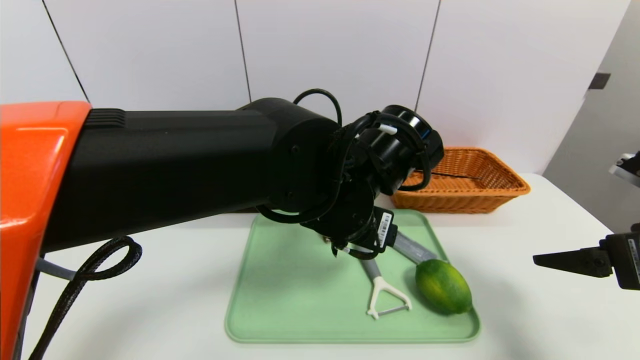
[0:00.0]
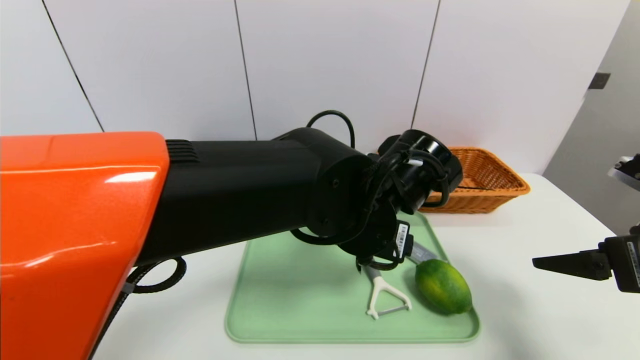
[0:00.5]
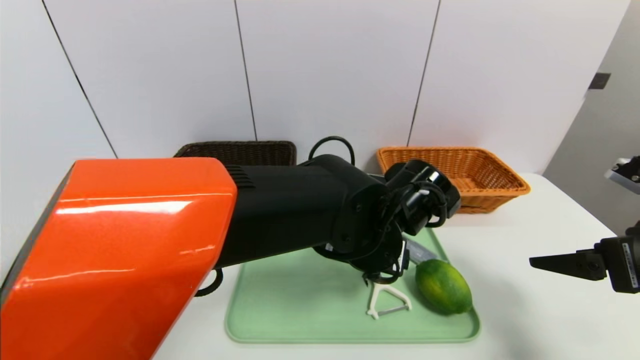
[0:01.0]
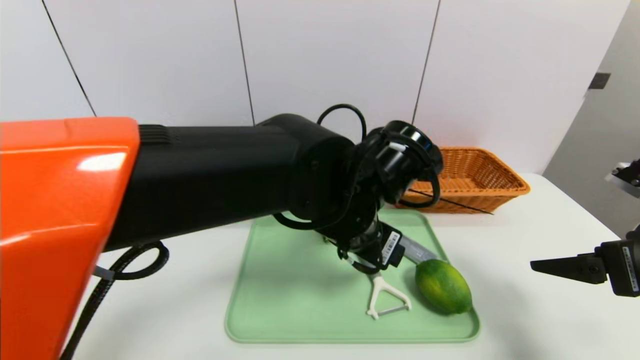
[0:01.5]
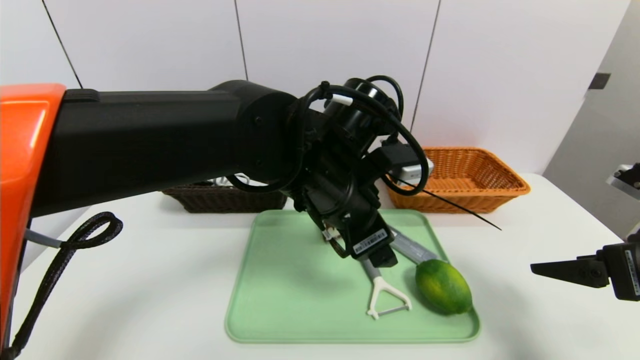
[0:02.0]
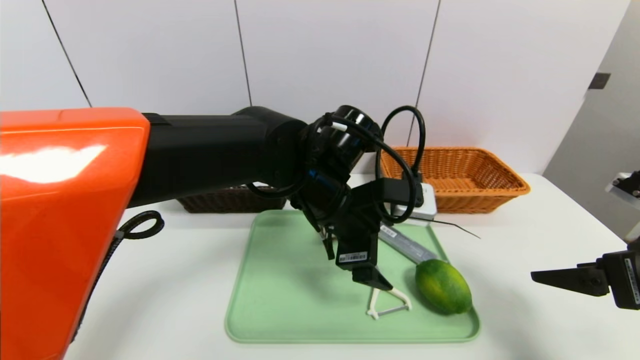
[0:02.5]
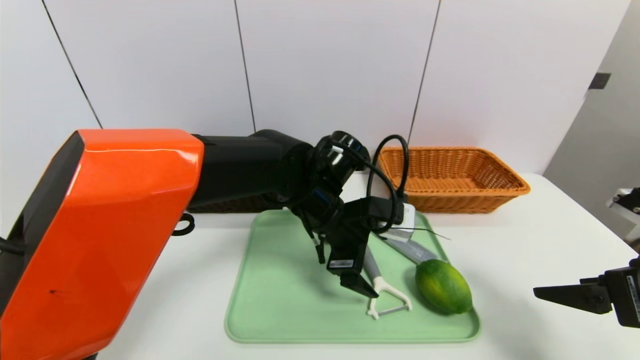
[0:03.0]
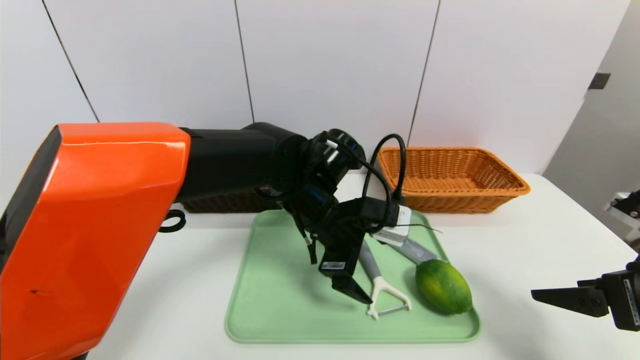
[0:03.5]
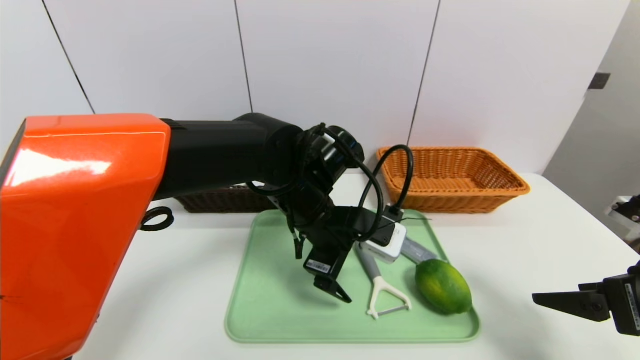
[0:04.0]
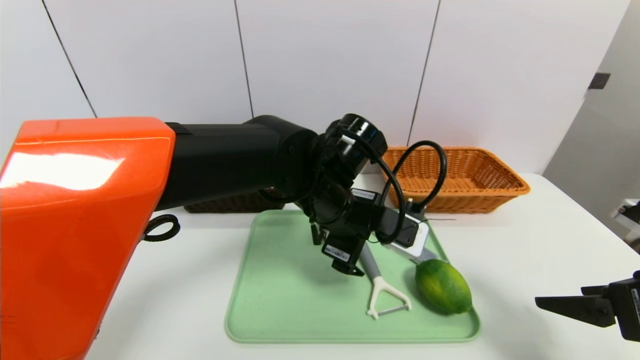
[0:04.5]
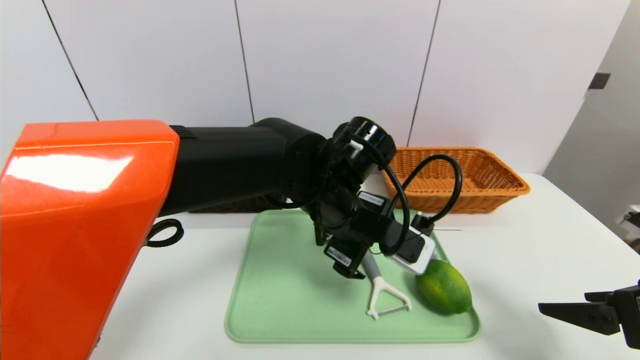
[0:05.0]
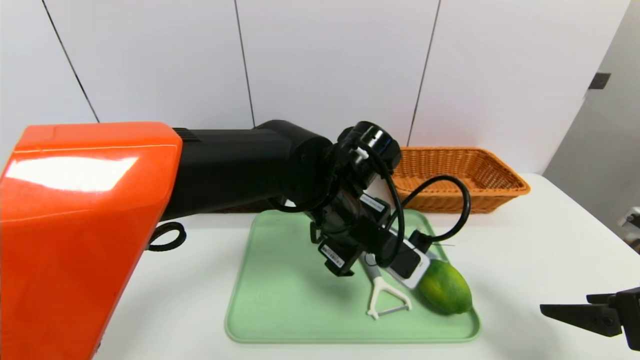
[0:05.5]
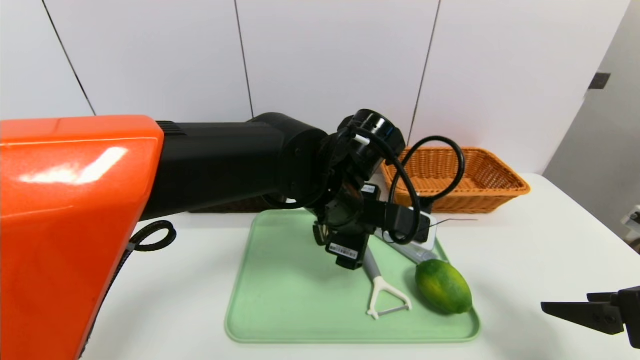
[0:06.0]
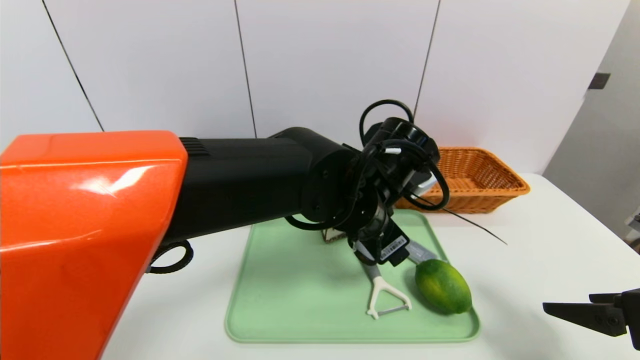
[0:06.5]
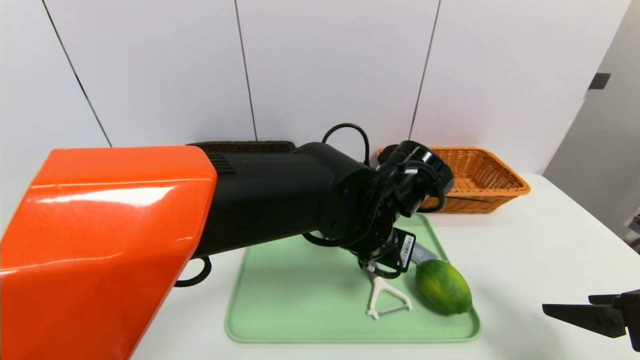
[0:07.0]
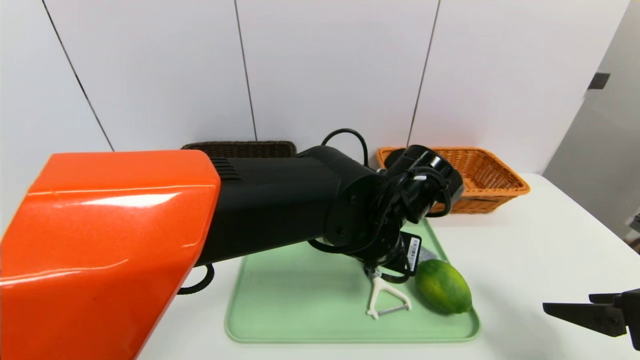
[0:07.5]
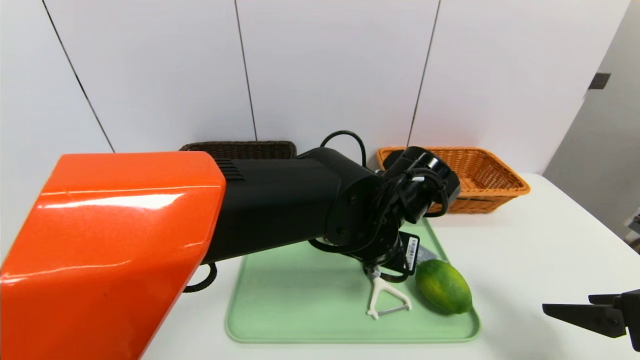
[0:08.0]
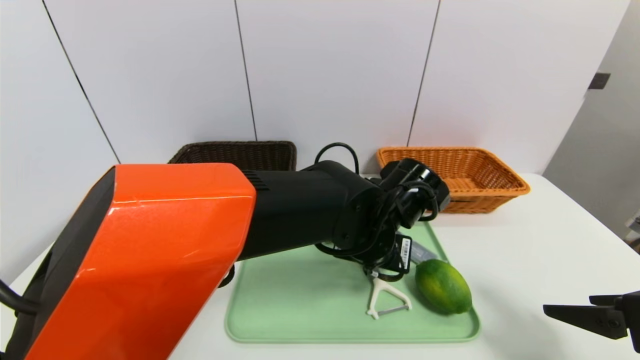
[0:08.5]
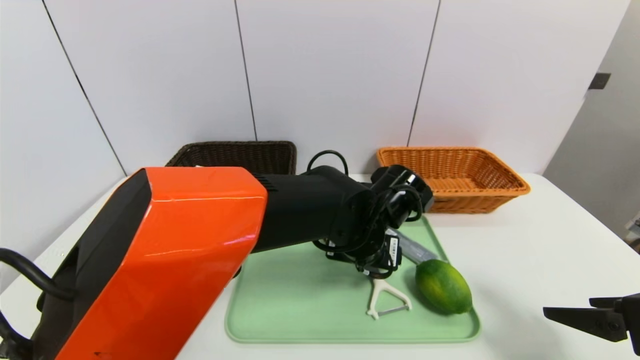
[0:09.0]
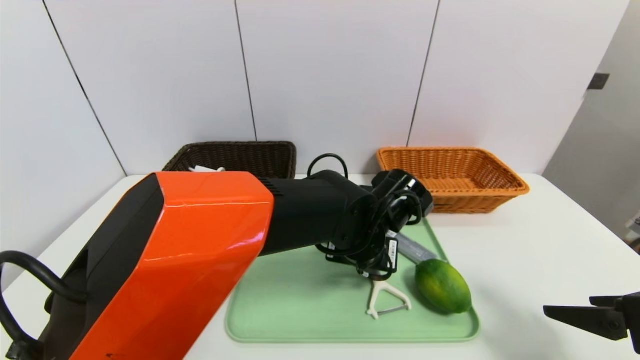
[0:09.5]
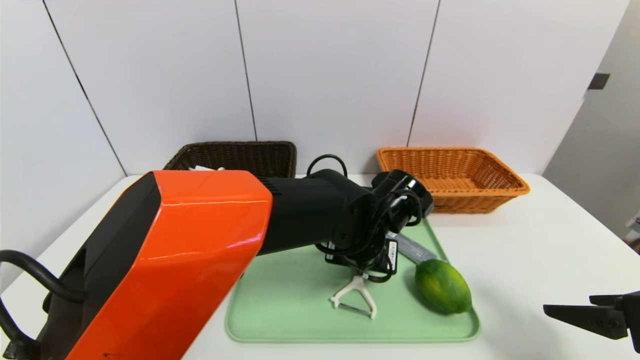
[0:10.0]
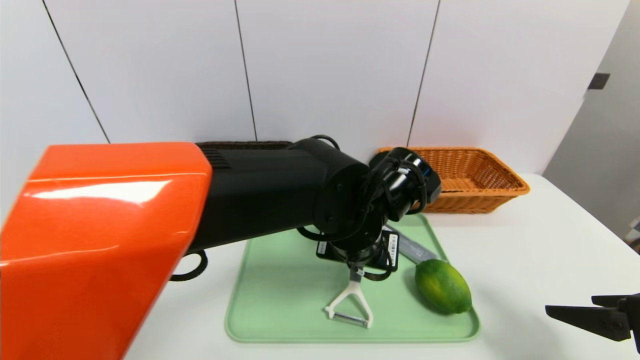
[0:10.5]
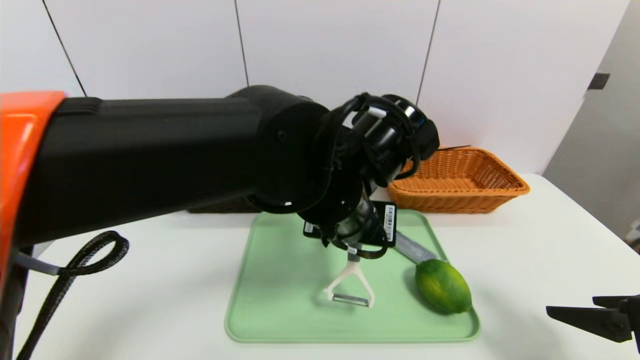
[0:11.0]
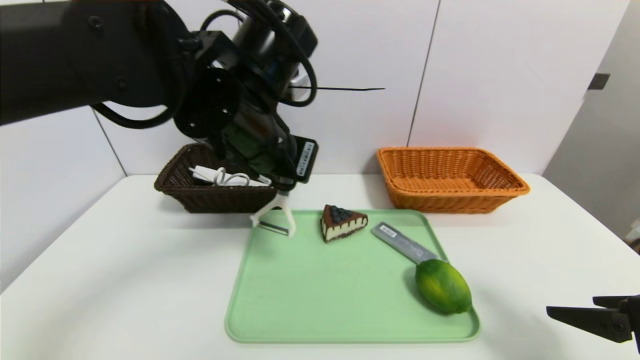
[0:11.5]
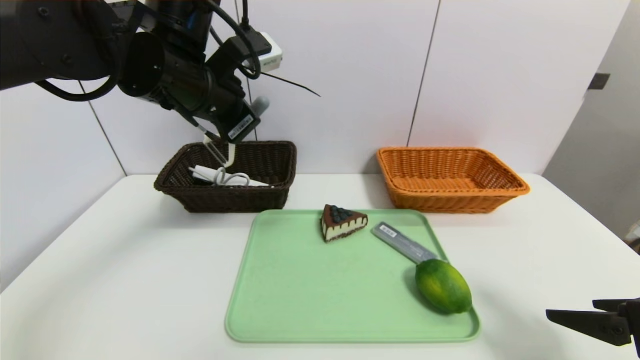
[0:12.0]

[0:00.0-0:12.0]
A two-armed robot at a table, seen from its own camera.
Task of the whole recording: place the food in the right basket with the right gripper, and place the non food items in the left basket with the left gripper.
0:02.0 to 0:04.0: The left gripper moves downward, about 5 cm.
0:06.0 to 0:08.0: The left gripper moves roughly 5 cm, and closes its fingers.
0:08.0 to 0:10.0: The left gripper moves approximately 5 cm, and opens, then closes again.
0:10.0 to 0:12.0: The left gripper moves to the left and upward, roughly 30 cm.

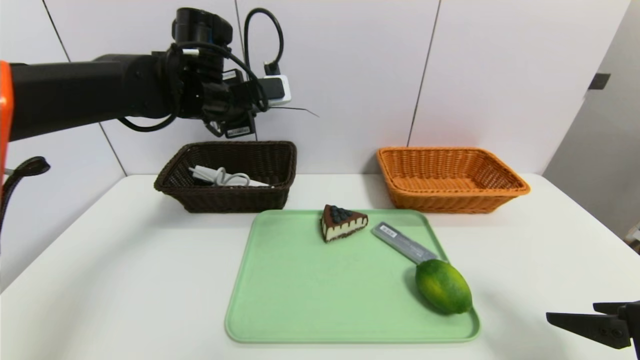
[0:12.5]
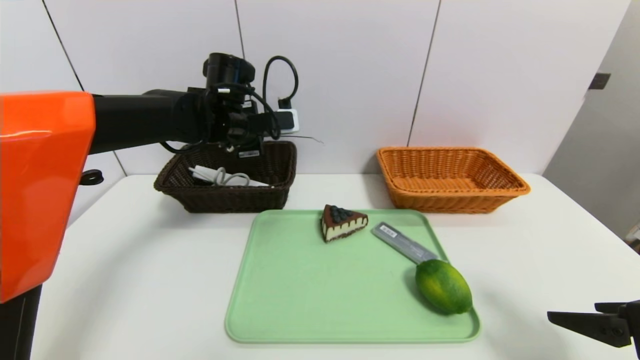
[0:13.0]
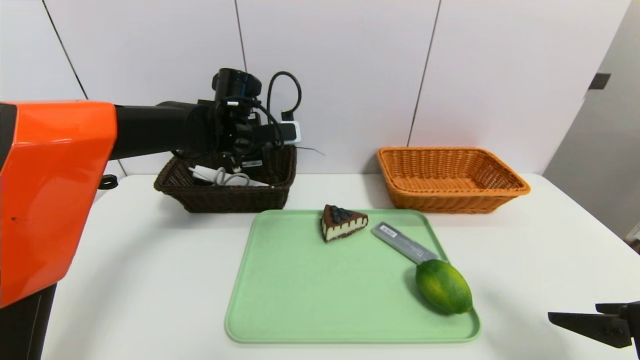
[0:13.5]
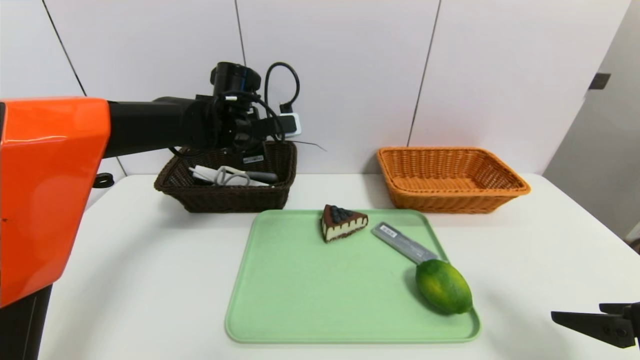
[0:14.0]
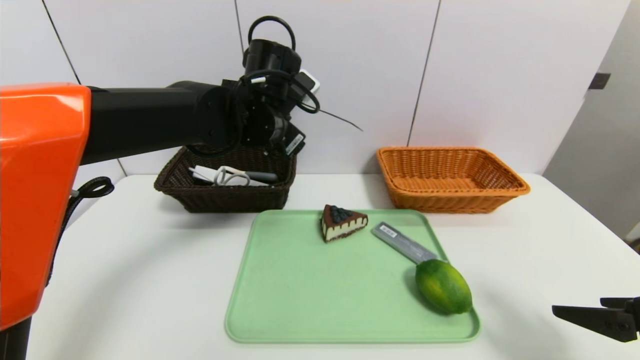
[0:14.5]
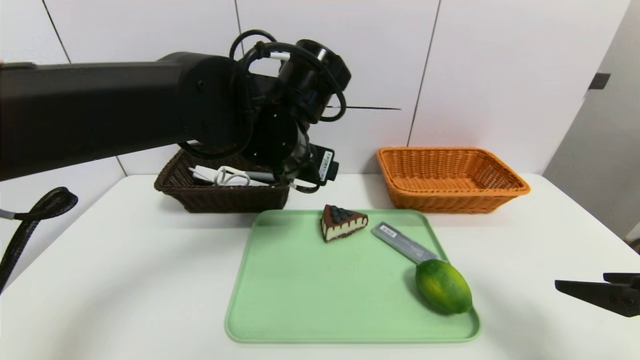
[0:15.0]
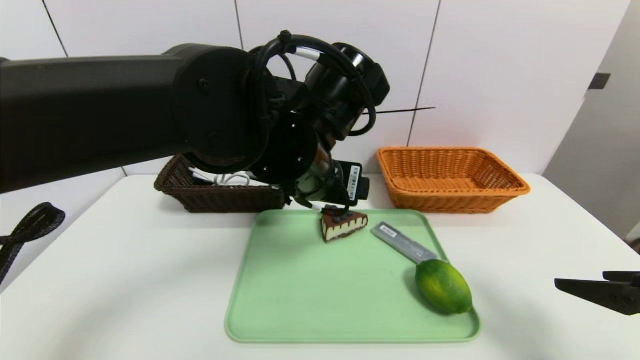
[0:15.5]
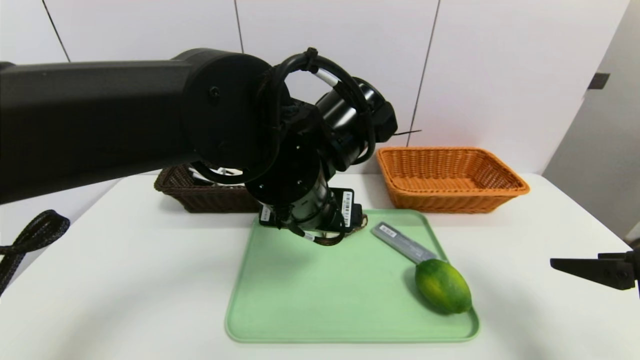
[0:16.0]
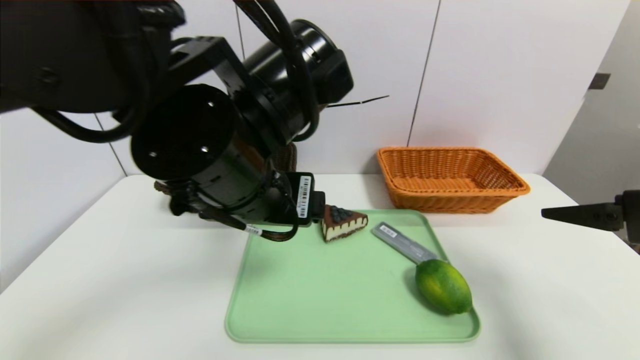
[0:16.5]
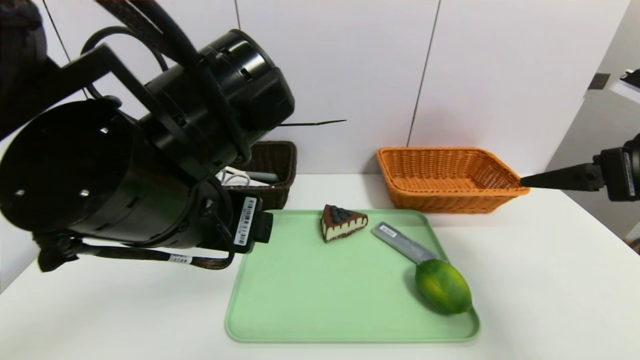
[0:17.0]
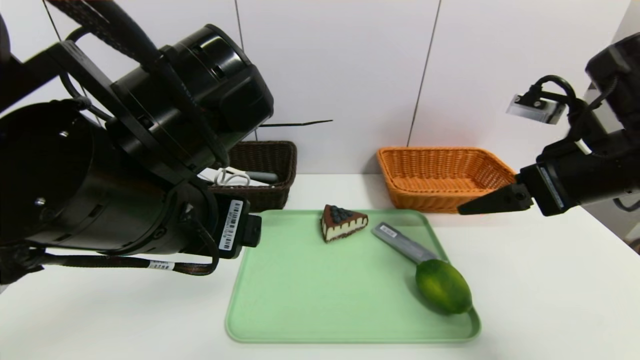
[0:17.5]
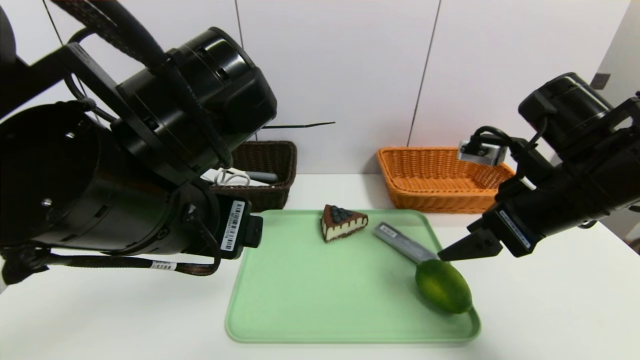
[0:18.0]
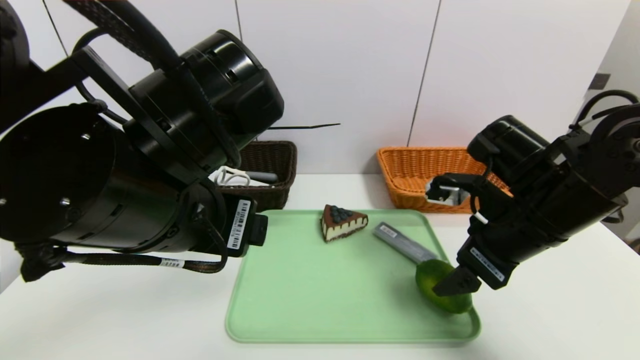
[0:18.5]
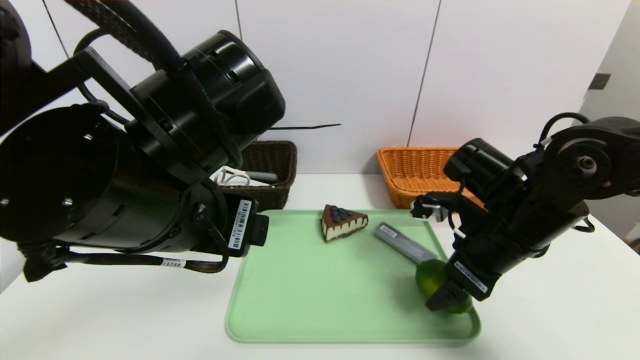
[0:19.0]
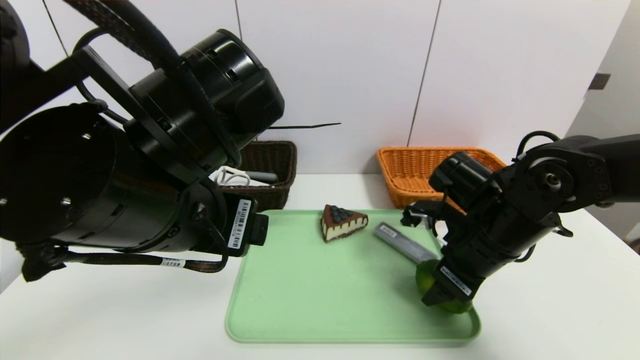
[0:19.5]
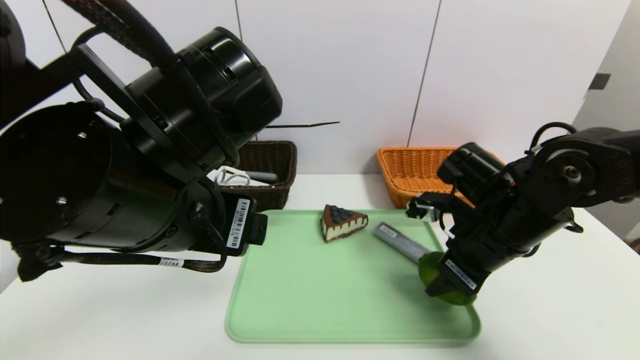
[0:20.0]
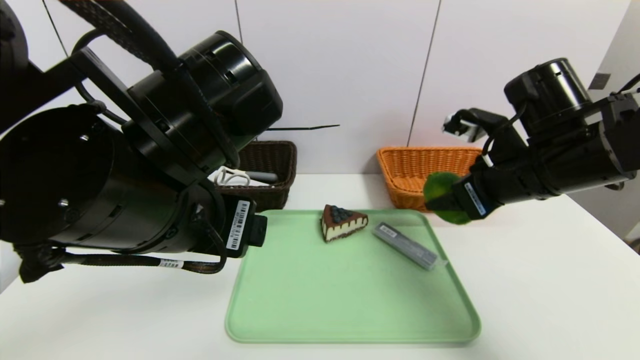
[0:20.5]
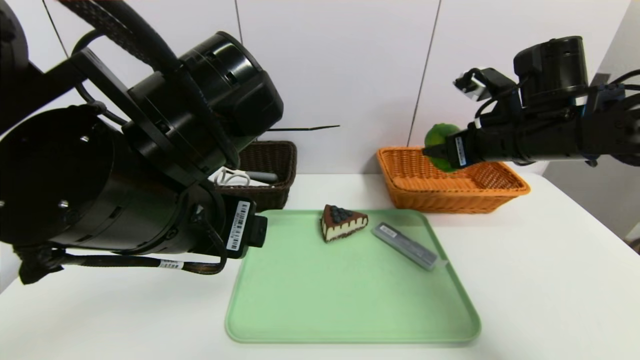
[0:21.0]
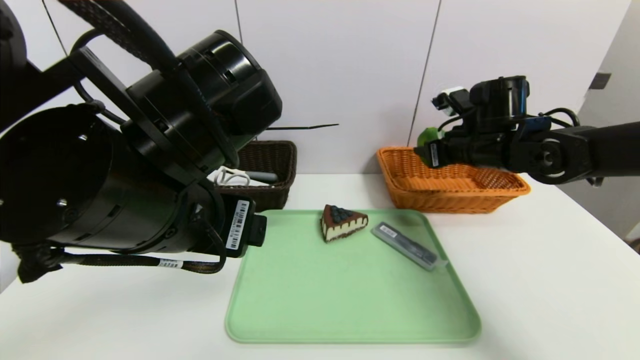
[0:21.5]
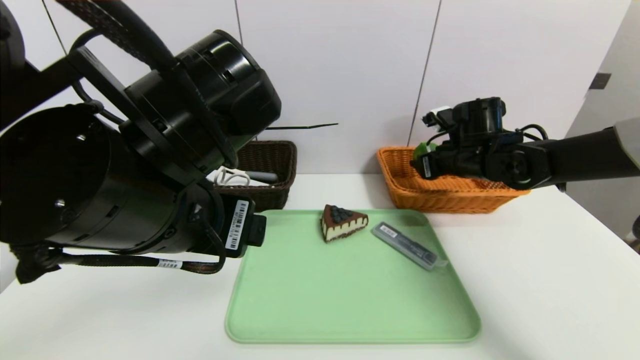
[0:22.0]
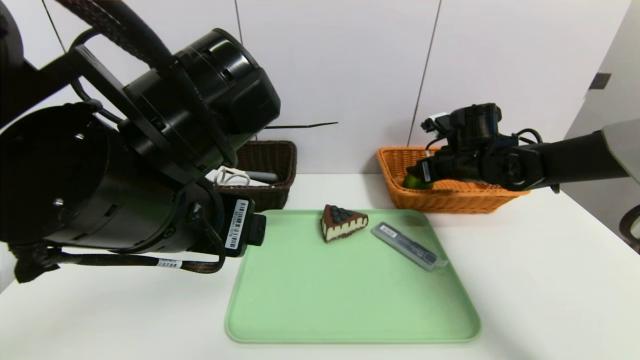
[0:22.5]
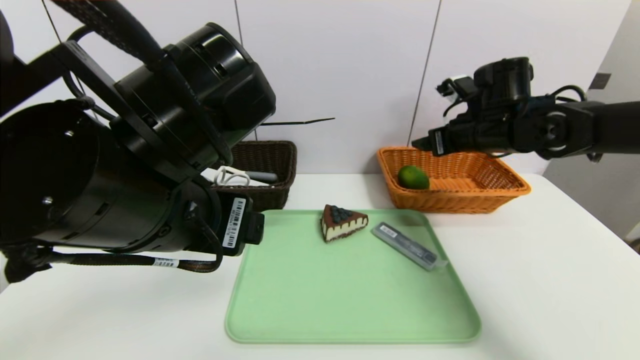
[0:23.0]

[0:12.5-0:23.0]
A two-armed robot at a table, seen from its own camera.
Task of the whole recording: place the food in the right basket with the right gripper, and place the non food items in the left basket with the left gripper.
Step, 0:14.0 to 0:22.5: Grasp the lime and put it in the right basket.
0:12.5 to 0:14.5: The left gripper travels to the right by approximately 10 cm, and opens its fingers.
0:14.5 to 0:16.5: The right gripper goes roughly 10 cm upward and forward; the left gripper moves backward, approximately 15 cm.
0:16.5 to 0:19.0: The right gripper goes approximately 20 cm to the left, forward and downward; the left gripper ends up about 5 cm from where it was.
0:19.0 to 0:21.0: The right gripper travels upward and forward by some 10 cm, and closes its fingers.
0:21.0 to 0:23.0: The right gripper is displaced forward by roughly 5 cm, and opens its fingers.
